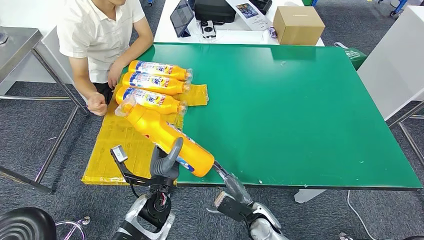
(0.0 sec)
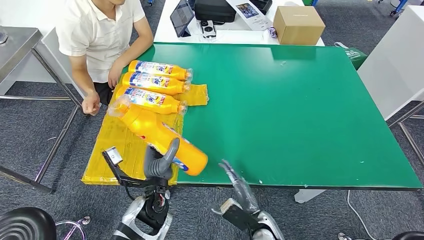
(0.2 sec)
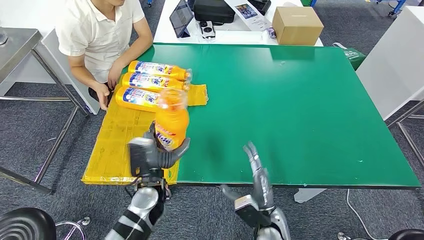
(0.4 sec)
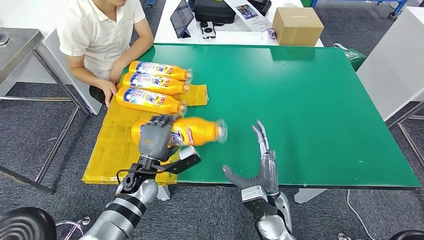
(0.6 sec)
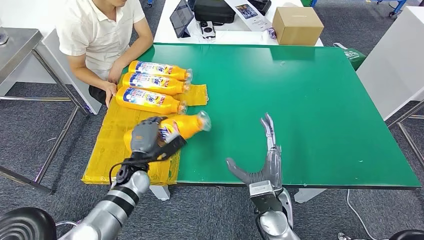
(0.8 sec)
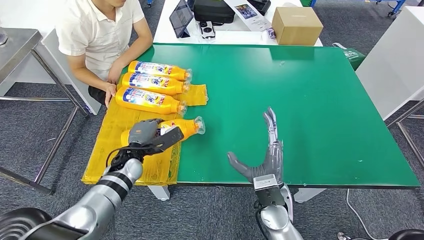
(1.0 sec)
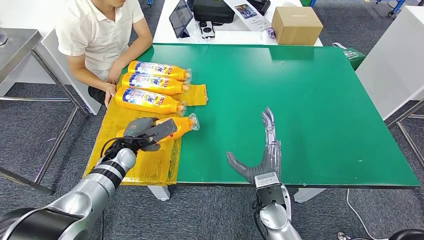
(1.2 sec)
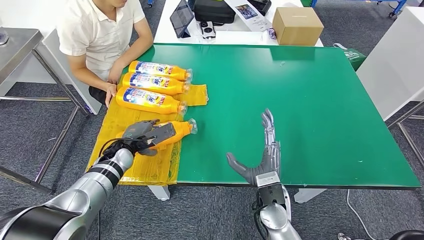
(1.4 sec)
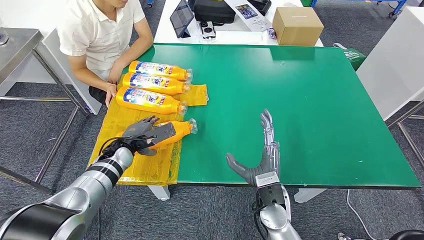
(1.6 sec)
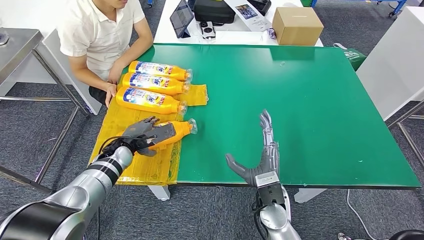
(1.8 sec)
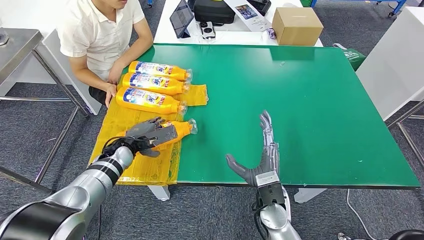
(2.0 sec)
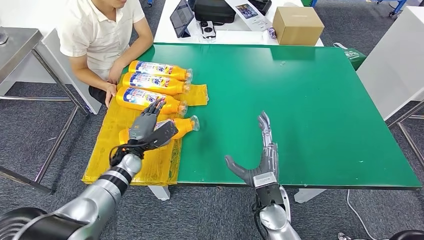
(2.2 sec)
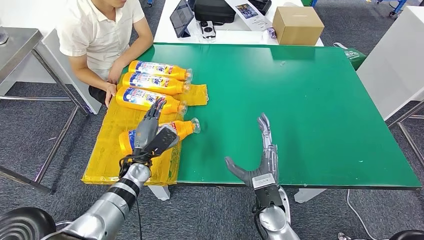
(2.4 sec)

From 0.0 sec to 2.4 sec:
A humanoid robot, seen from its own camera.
Step, from 0.0 sec to 2.4 sec: Flip the fast-moving consumer goods bottle to the front side.
From 1.2 sec to 2.4 sec: The left hand changes place by about 5 cm.
